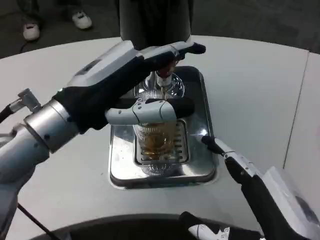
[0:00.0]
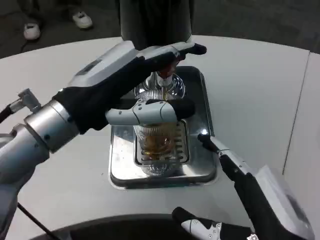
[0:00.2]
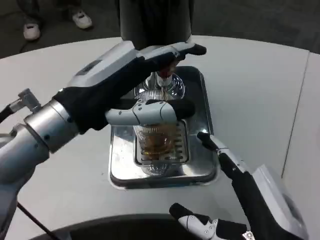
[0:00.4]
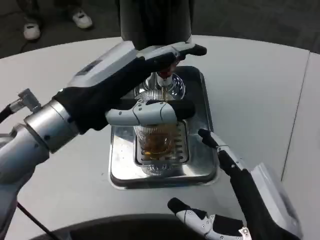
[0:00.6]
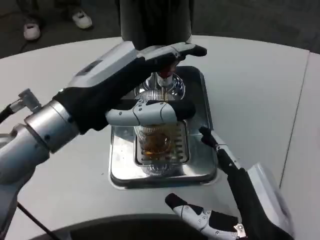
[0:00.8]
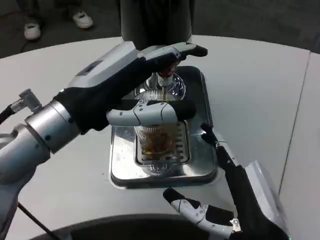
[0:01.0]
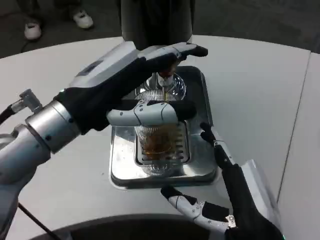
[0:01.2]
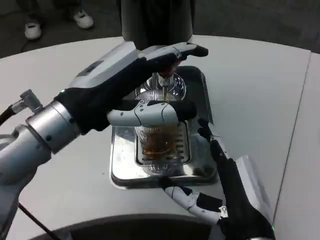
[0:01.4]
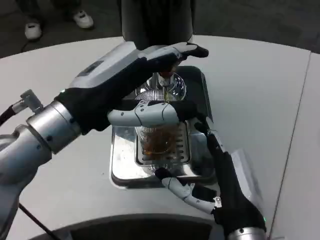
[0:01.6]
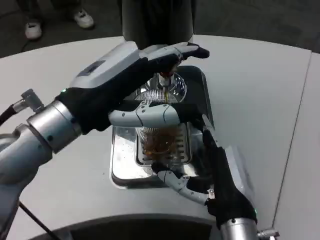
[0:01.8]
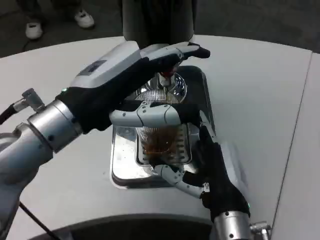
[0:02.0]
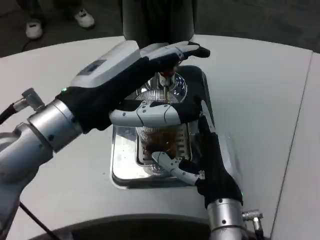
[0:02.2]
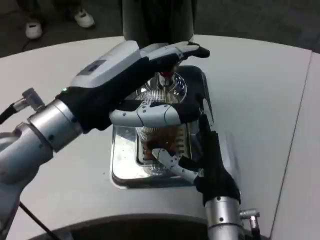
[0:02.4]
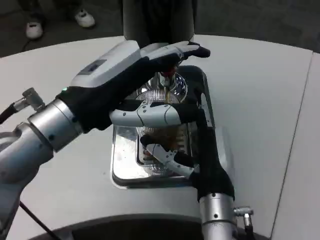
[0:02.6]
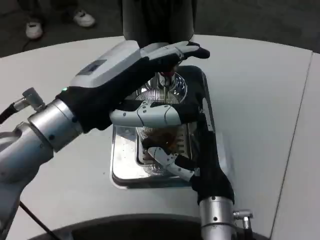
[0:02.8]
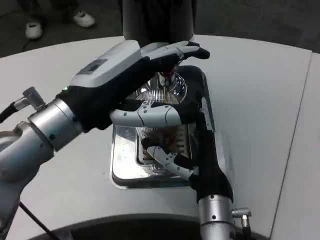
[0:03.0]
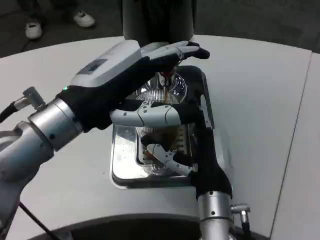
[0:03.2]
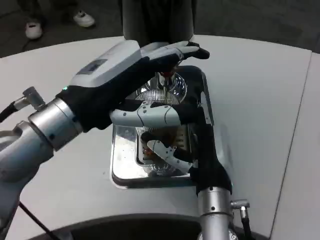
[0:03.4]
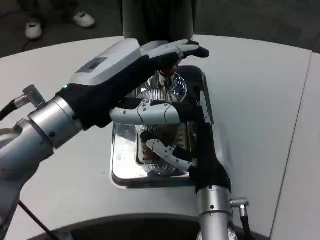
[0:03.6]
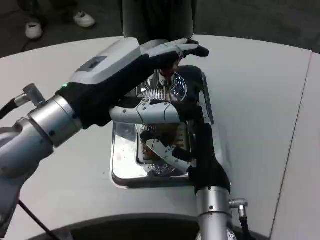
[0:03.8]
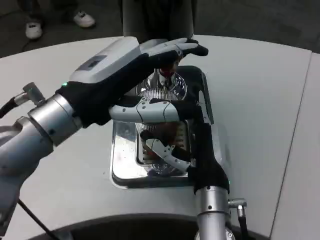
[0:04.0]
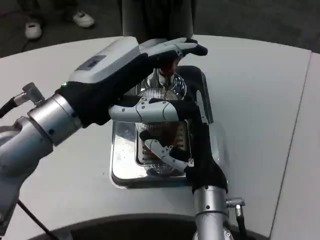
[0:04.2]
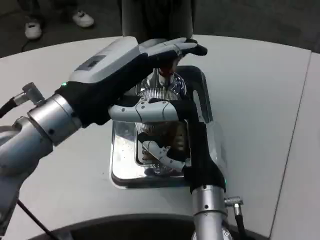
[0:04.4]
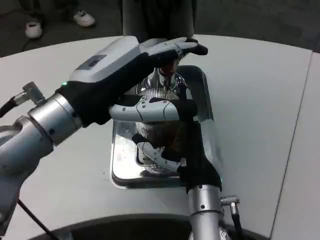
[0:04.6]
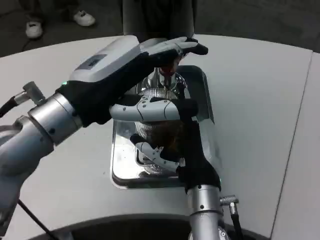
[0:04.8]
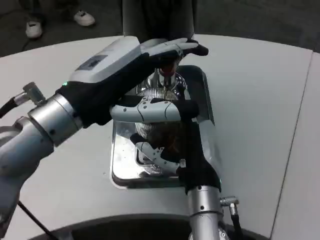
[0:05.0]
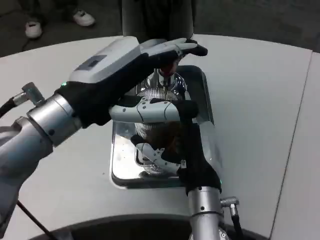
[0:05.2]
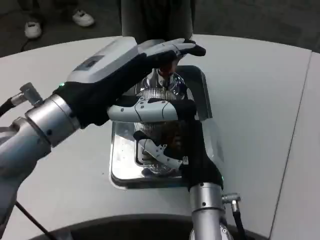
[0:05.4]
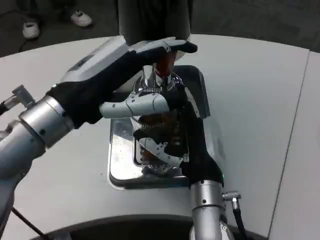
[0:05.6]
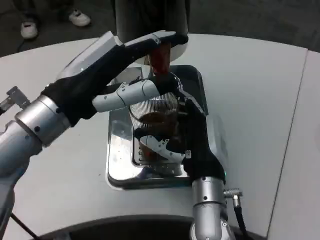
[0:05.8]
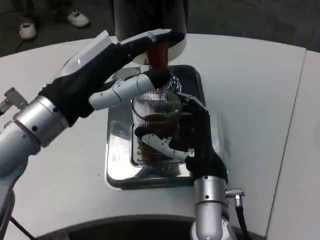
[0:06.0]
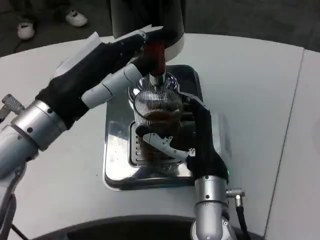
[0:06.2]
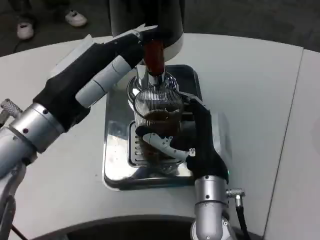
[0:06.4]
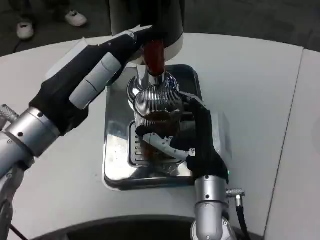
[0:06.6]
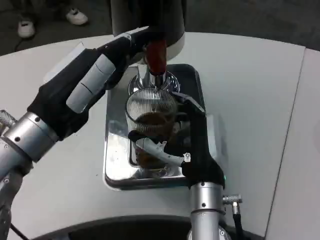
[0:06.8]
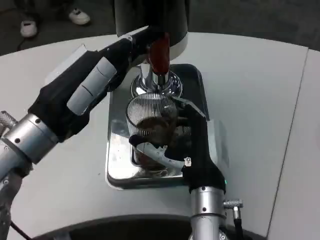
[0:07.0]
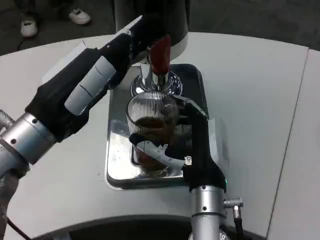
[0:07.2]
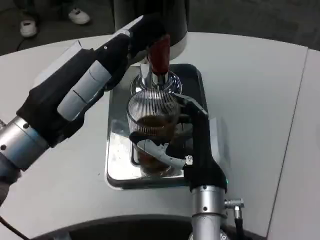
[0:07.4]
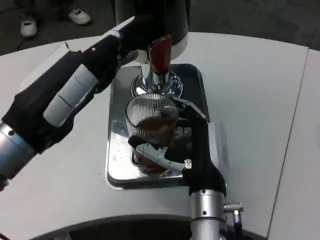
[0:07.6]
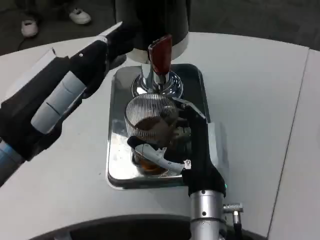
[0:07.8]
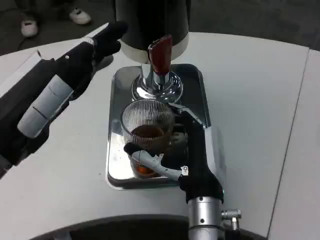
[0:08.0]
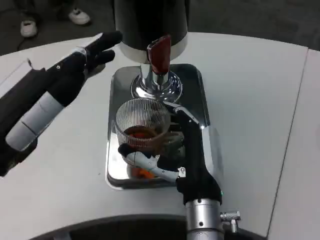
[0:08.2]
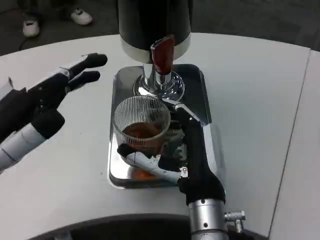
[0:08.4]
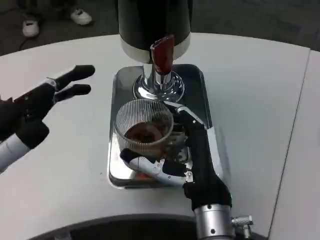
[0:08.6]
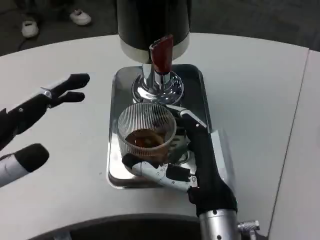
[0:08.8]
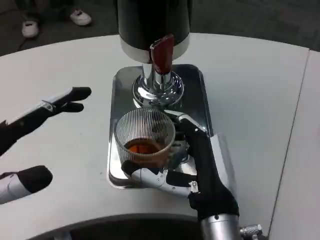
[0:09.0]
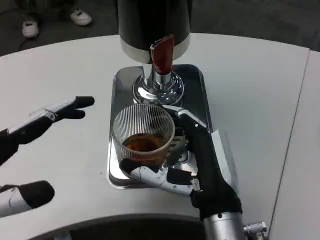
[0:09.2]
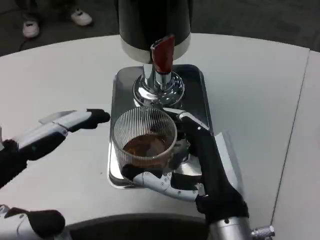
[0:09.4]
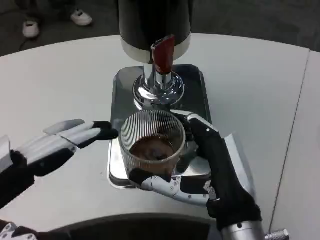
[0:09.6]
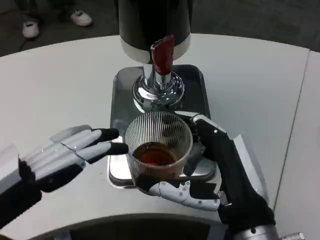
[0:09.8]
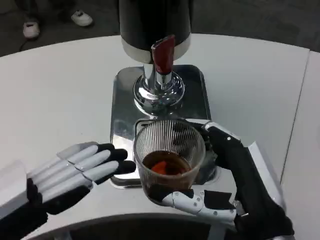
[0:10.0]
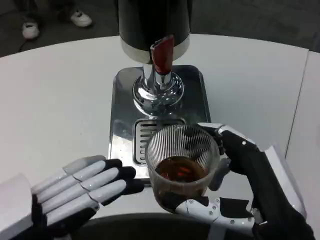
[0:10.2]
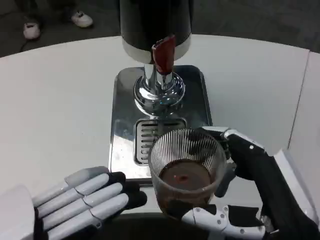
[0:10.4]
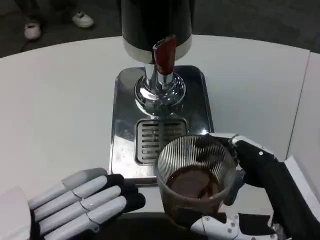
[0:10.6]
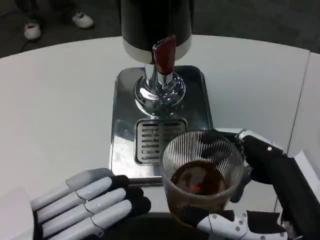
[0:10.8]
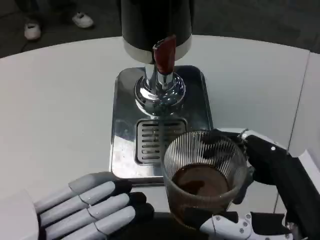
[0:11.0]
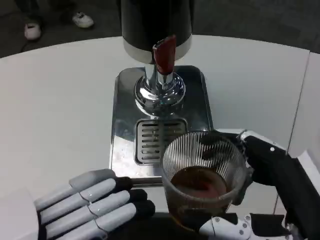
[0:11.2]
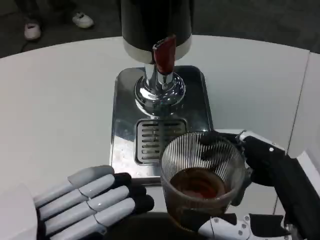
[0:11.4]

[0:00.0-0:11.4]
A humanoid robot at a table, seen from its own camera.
Task of the whole recording: Grasp the cup under the faucet to collect the drink, then remove the cup.
0:00.0 to 0:01.4: The right hand moves forward, roughly 5 cm.
0:01.4 to 0:02.8: The right hand goes about 10 cm forward.
0:02.8 to 0:04.2: There are only small adjustments of the hands.
0:07.2 to 0:08.6: The left hand heads to the left and backward, covering some 10 cm.
0:08.6 to 0:10.0: The right hand travels to the right and backward by about 10 cm; the left hand travels backward by some 5 cm.
0:10.0 to 0:11.4: The right hand is displaced backward by approximately 5 cm.

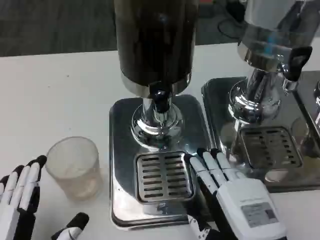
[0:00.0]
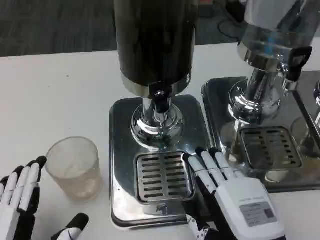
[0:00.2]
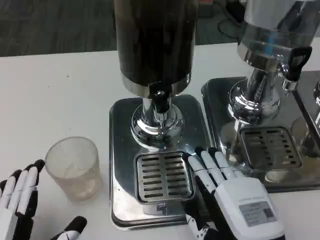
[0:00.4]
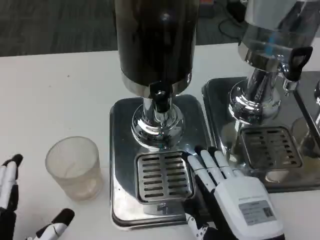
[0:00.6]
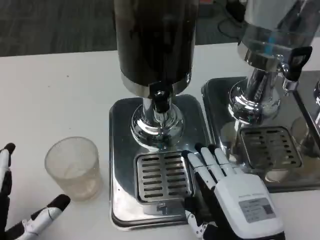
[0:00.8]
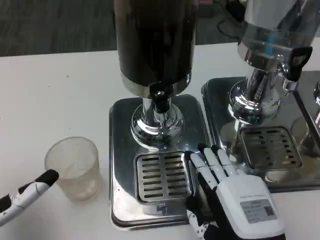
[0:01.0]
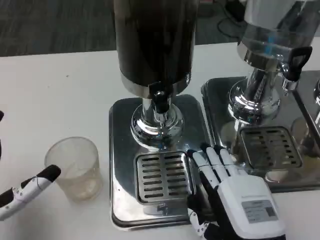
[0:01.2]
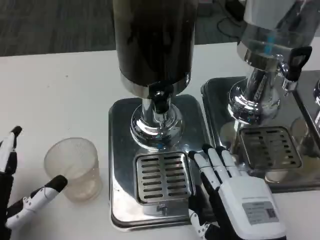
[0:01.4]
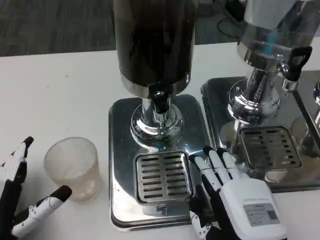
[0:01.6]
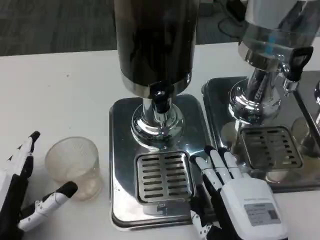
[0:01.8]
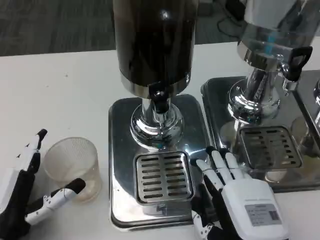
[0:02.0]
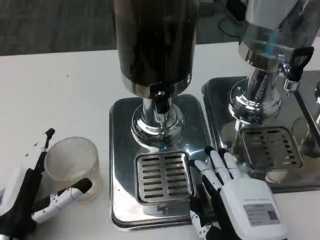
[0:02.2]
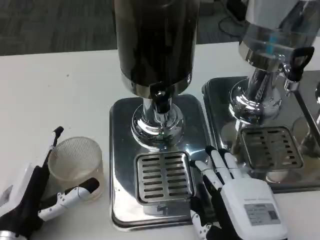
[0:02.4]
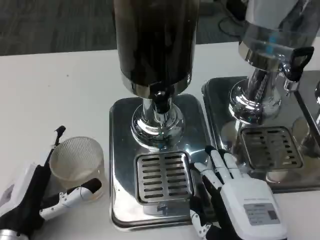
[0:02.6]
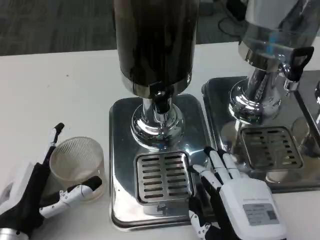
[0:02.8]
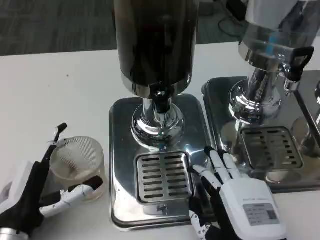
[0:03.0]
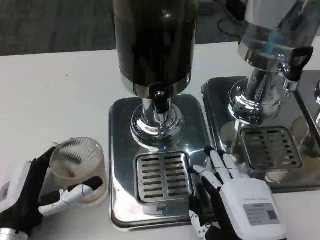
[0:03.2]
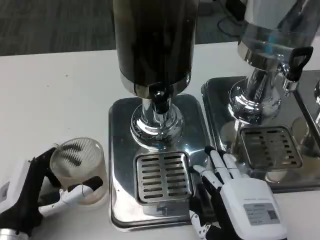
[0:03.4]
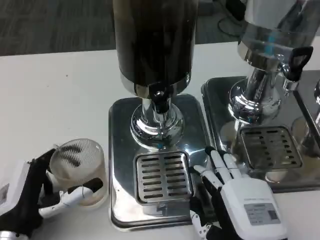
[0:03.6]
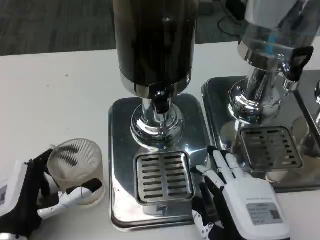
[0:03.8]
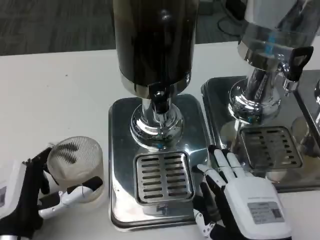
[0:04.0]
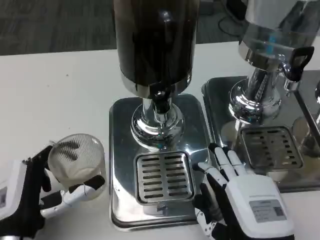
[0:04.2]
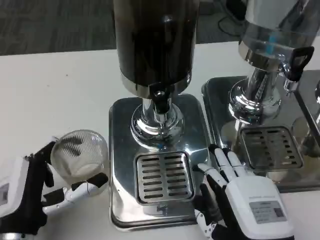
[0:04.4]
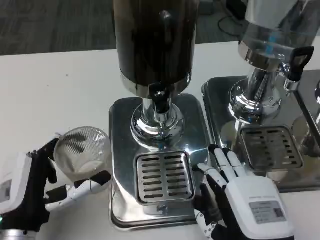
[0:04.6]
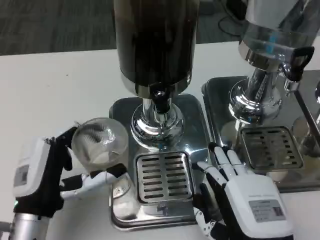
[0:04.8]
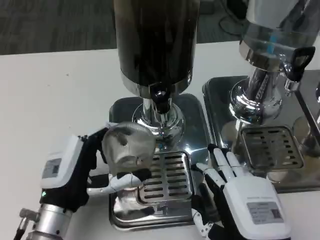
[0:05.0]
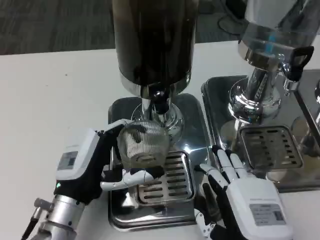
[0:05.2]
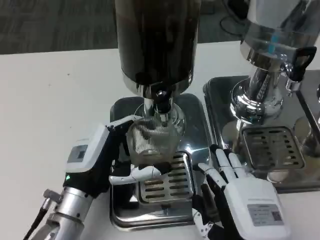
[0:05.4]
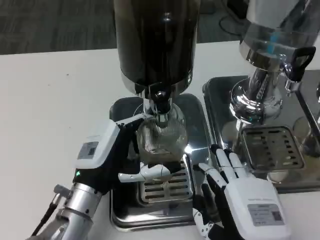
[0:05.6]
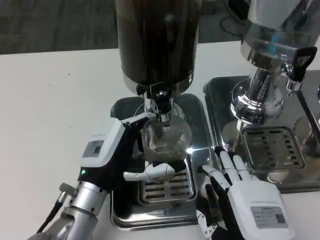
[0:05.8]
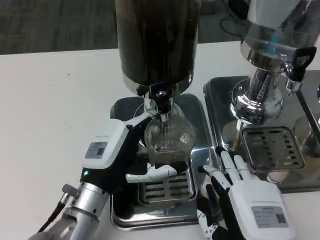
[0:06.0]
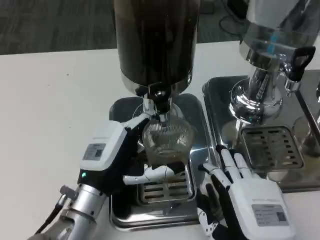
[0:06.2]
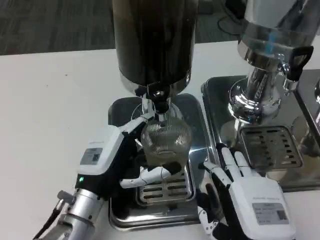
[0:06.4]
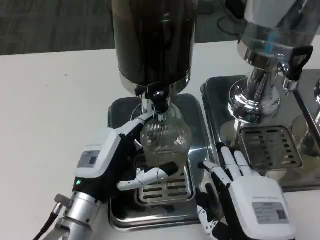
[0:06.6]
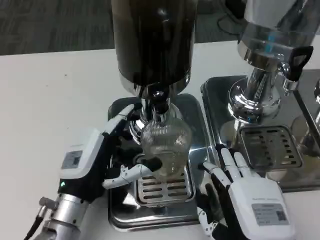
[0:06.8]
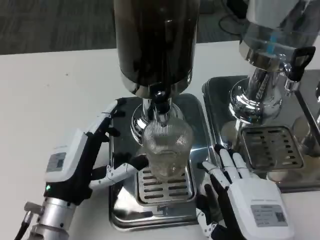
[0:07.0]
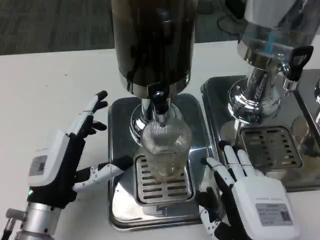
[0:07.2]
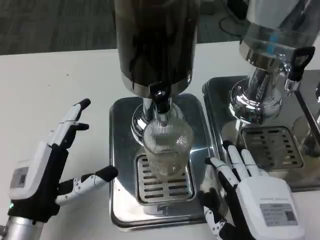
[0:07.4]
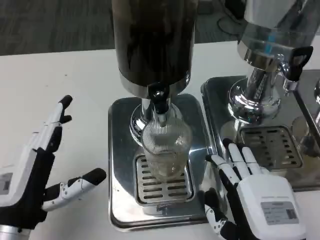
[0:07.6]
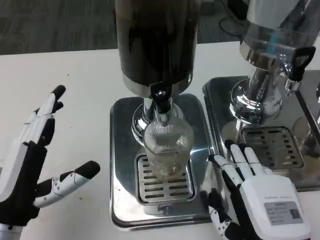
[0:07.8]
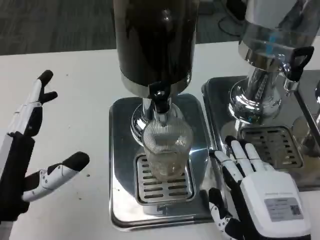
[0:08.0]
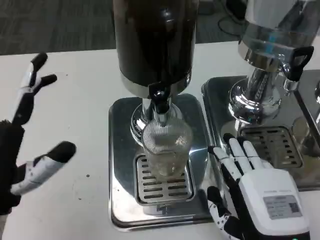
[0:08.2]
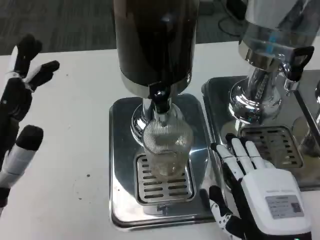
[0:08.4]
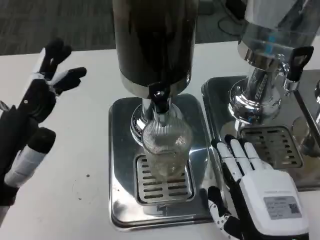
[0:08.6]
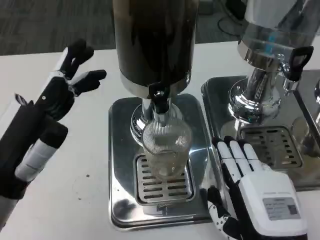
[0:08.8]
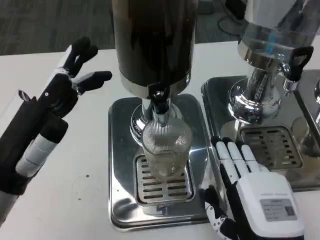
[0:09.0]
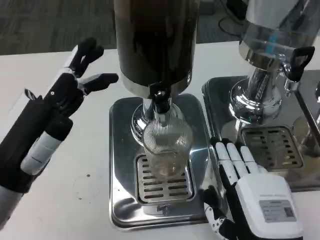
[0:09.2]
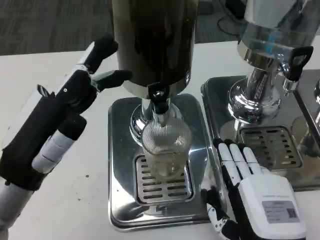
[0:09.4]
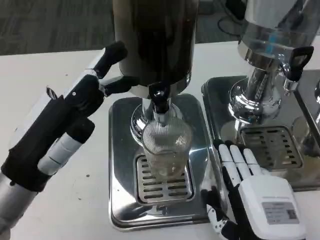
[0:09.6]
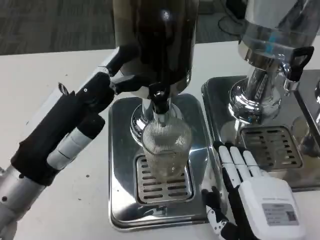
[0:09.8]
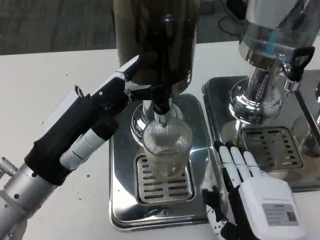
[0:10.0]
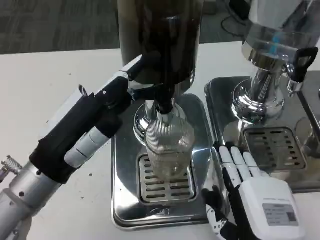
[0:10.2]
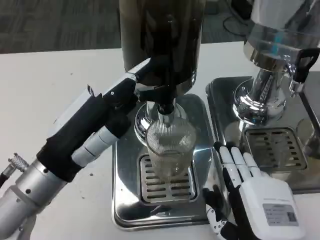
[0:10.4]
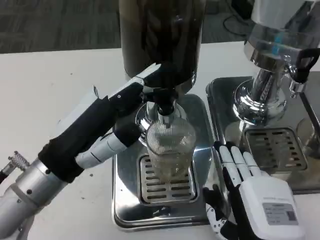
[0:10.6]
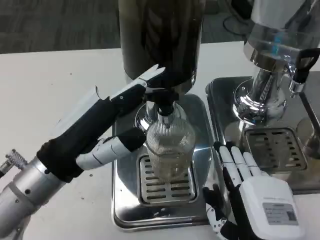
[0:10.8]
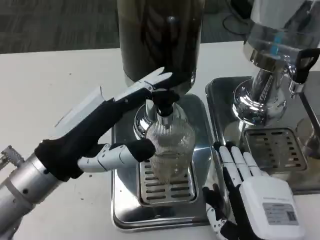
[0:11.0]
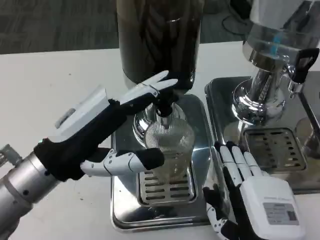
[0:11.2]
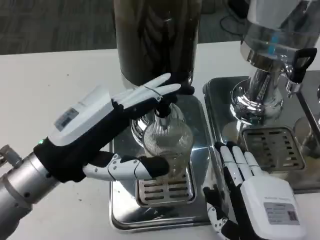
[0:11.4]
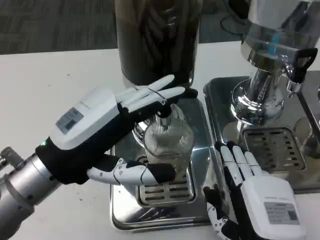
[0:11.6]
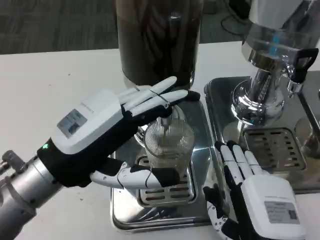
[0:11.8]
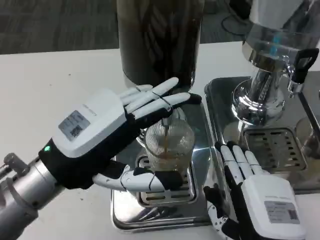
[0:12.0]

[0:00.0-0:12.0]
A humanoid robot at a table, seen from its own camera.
Task of the whole recording: Grasp the cup under the faucet to collect the drink, then remove the cup.
0:00.0 to 0:01.6: The left hand is displaced forward by some 5 cm.
0:01.6 to 0:04.4: There are only small adjustments of the hands.
0:04.4 to 0:06.0: The left hand heads to the right and forward, covering approximately 10 cm.
0:06.0 to 0:07.6: The left hand travels to the left and backward by about 10 cm.
0:07.6 to 0:09.0: The left hand heads upward, covering roughly 10 cm.
0:09.0 to 0:10.4: The left hand shifts by some 5 cm.
